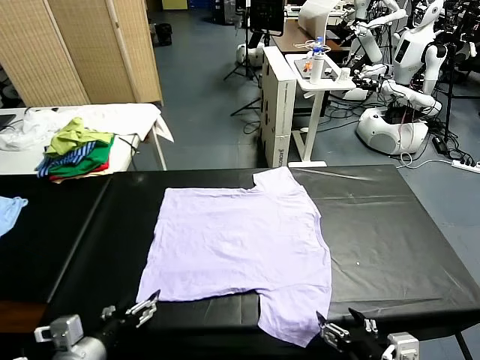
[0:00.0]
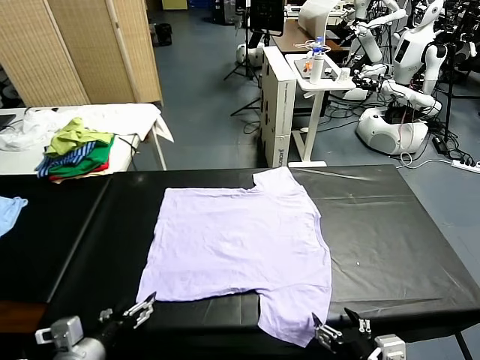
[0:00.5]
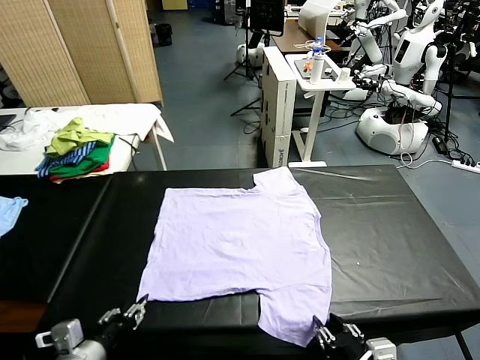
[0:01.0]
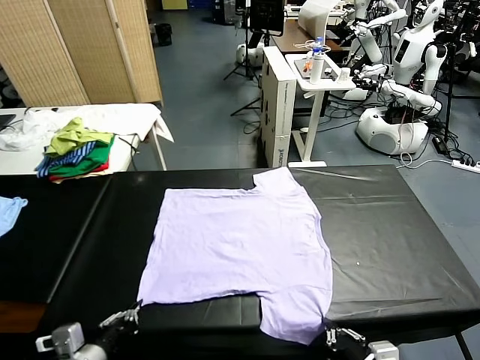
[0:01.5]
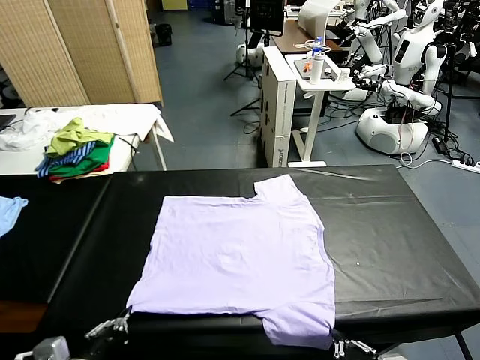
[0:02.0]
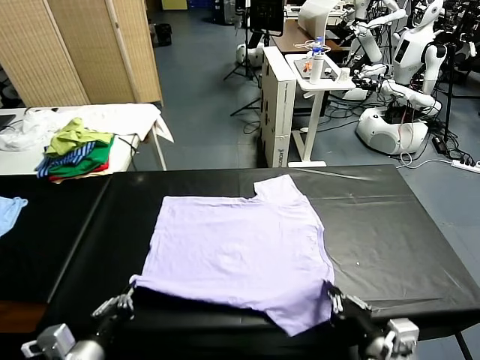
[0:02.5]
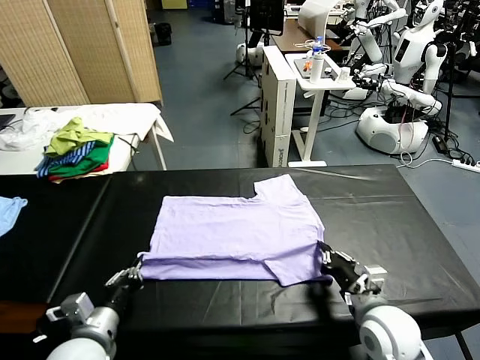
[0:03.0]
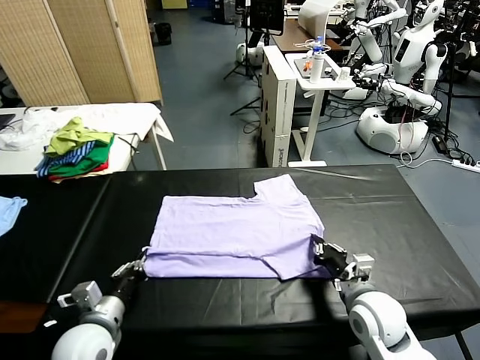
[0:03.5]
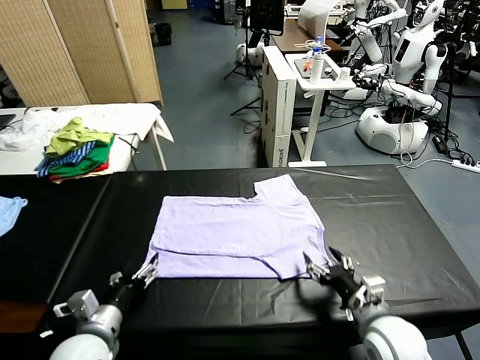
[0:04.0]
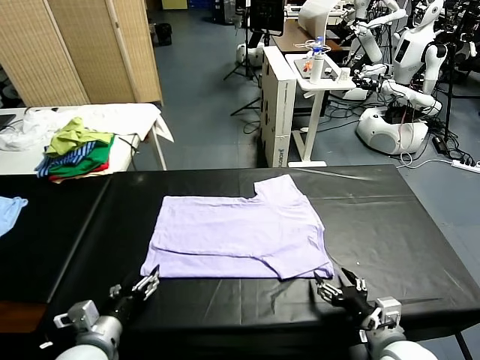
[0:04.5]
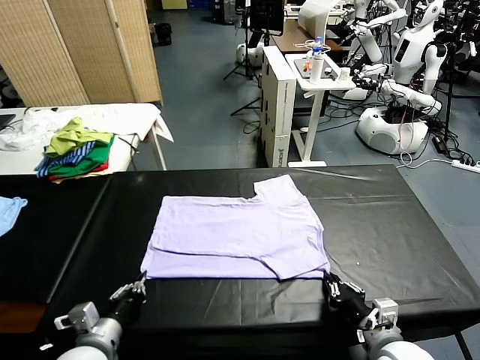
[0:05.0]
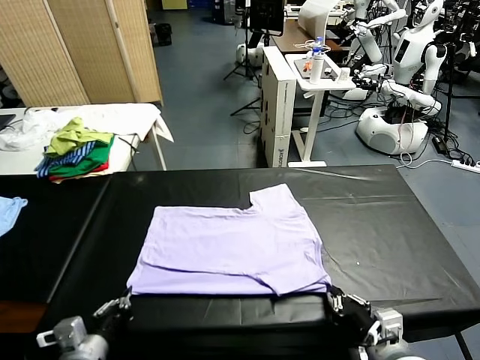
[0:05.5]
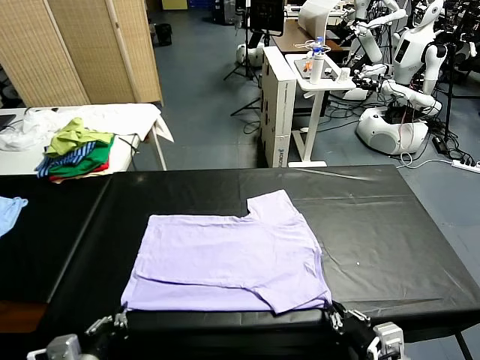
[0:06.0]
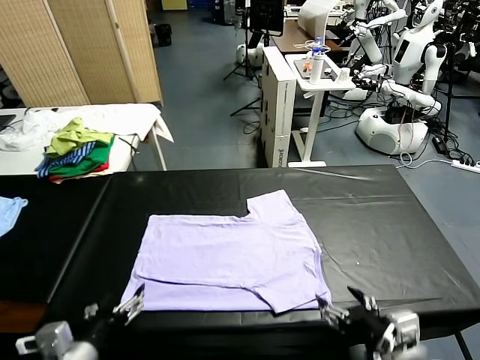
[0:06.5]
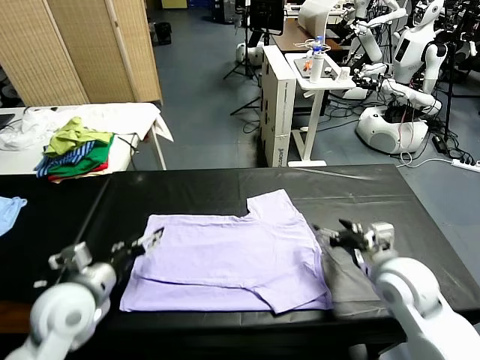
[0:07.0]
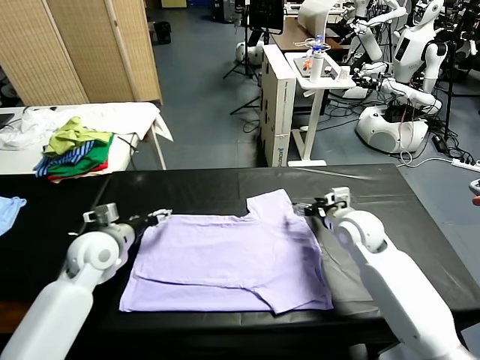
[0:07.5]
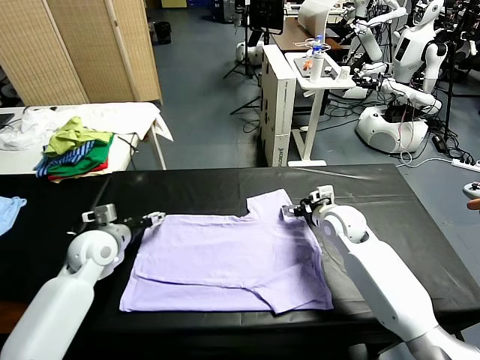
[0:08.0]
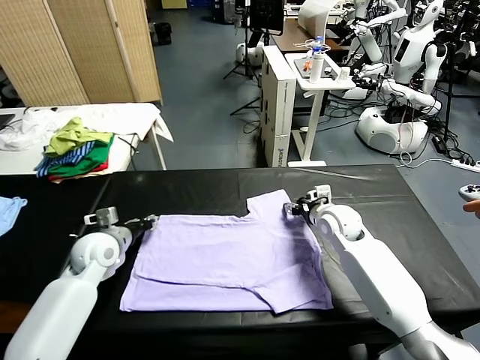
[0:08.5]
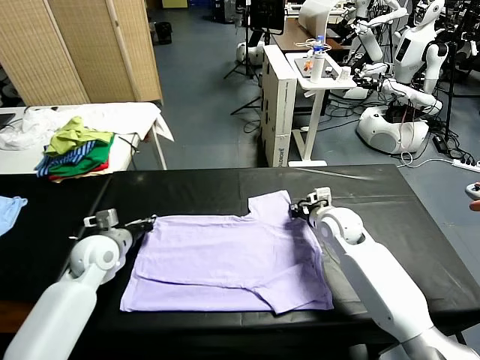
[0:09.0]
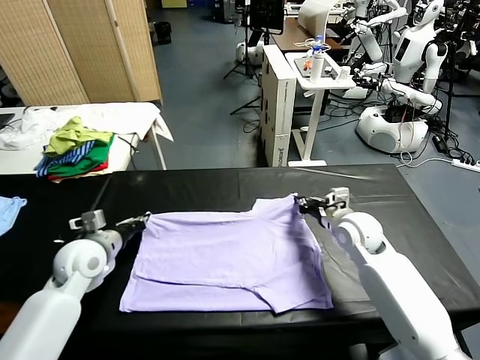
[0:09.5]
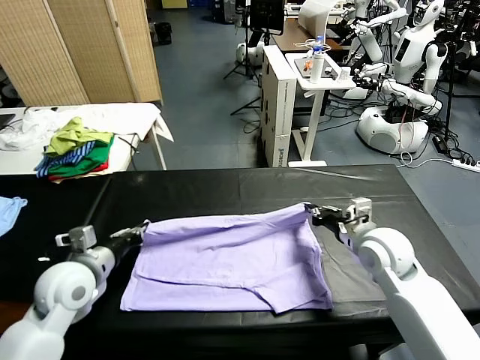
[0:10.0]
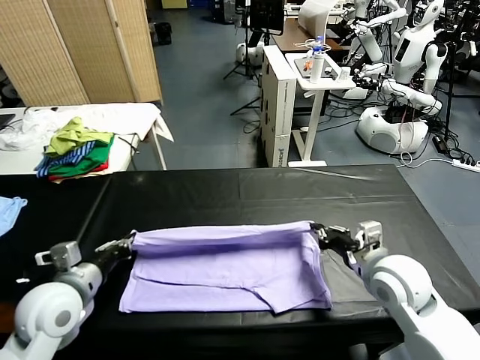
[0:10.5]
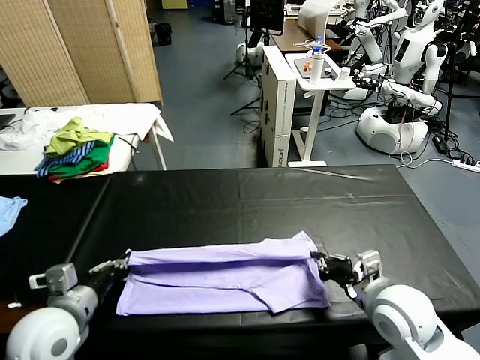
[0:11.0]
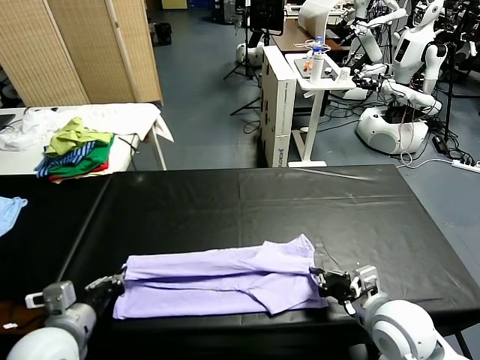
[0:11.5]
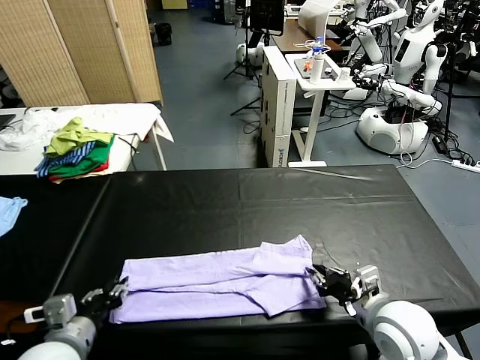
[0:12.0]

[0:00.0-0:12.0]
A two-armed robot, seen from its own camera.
Task of the whole recording: fold and organize the clothes.
Step, 0:00.0 to 0:01.5: use both grippers simultaneously to clamp the lower edge of the clothing fabric.
Step, 0:02.0 to 0:03.5: use both grippers to drag the lower edge of the fabric forward and fold it over the upper edge.
Step, 0:04.0 to 0:06.0: Drag the clothes downward with both gripper.
Step, 0:06.5 to 0:09.0: use both grippers simultaneously to clamp the upper edge of the clothing fabric.
0:02.0 to 0:04.0: Both grippers move forward and downward, about 10 cm. The right gripper opens its fingers. The left gripper opens.
0:04.0 to 0:06.0: The left gripper shifts some 10 cm backward, and closes its fingers, while the right gripper travels backward and upward by about 10 cm, and closes, then reopens.
0:06.0 to 0:08.0: The two grippers go some 30 cm forward. The left gripper opens up.
0:08.0 to 0:10.0: The right gripper goes roughly 15 cm backward and upward, and closes. The left gripper moves backward, approximately 10 cm, and closes up.
0:10.0 to 0:12.0: Both grippers travel together backward, approximately 10 cm. The left gripper opens its fingers. Meanwhile the right gripper opens its fingers.

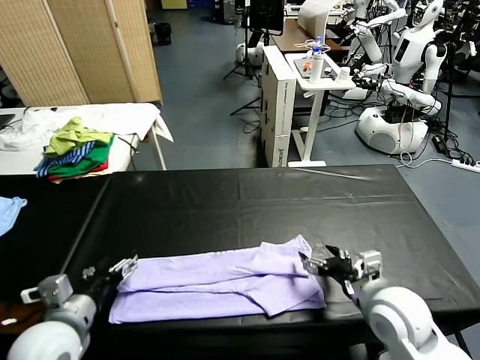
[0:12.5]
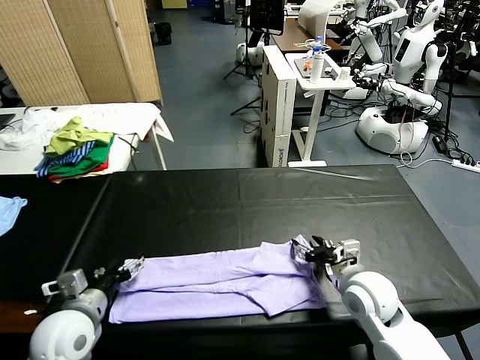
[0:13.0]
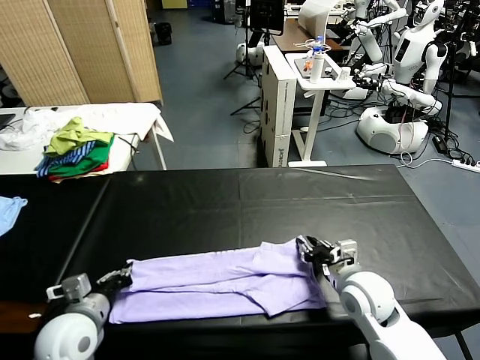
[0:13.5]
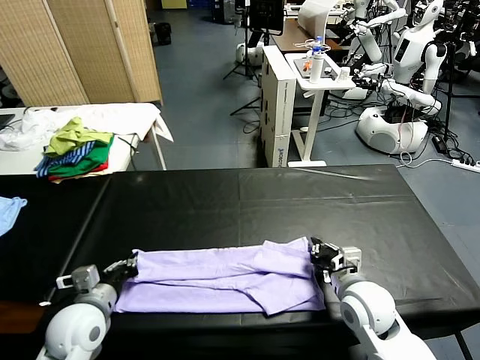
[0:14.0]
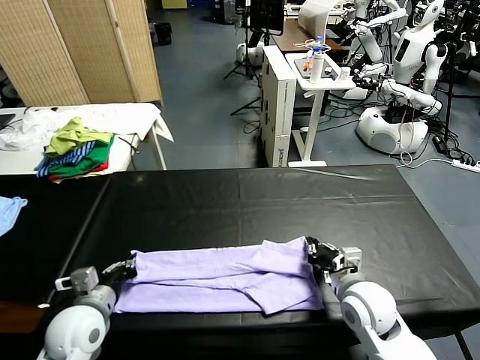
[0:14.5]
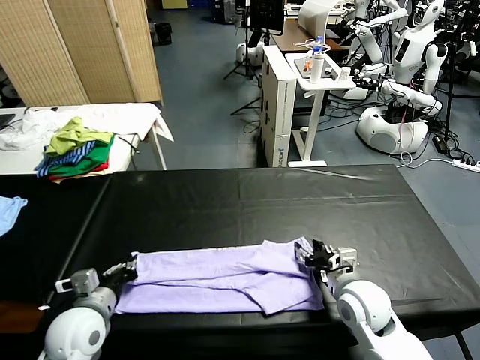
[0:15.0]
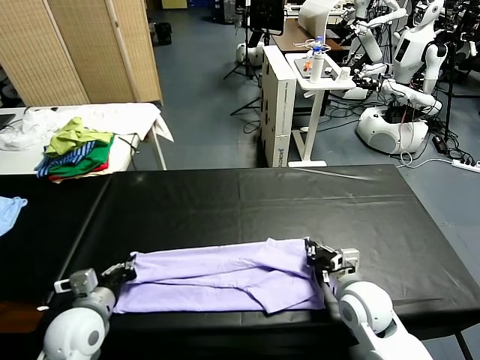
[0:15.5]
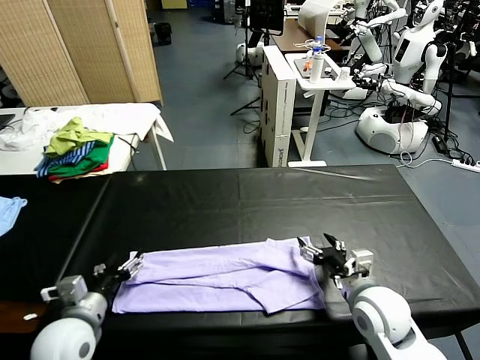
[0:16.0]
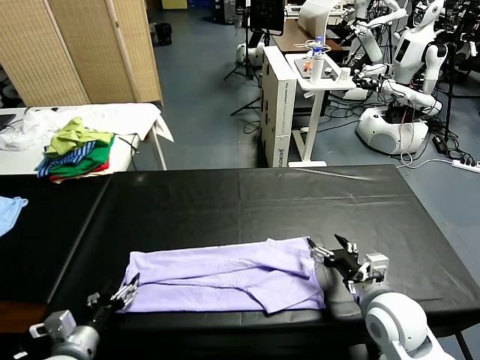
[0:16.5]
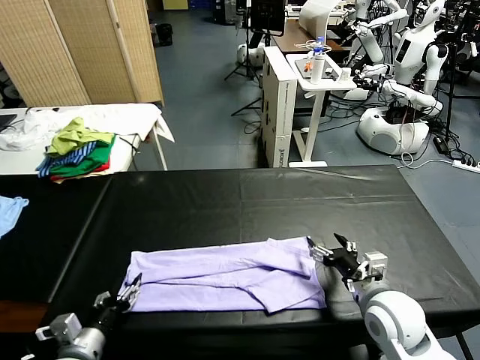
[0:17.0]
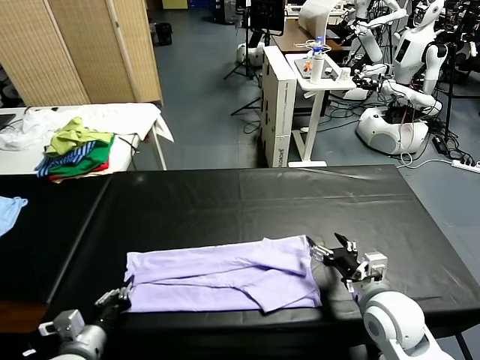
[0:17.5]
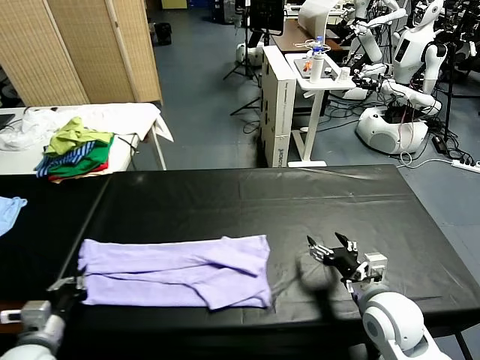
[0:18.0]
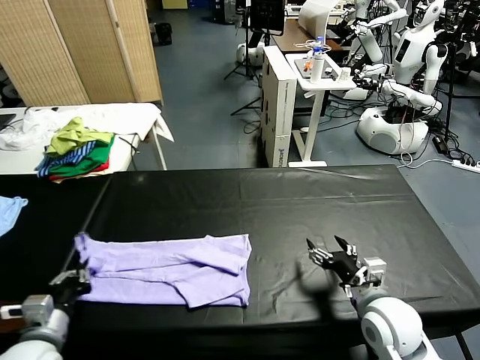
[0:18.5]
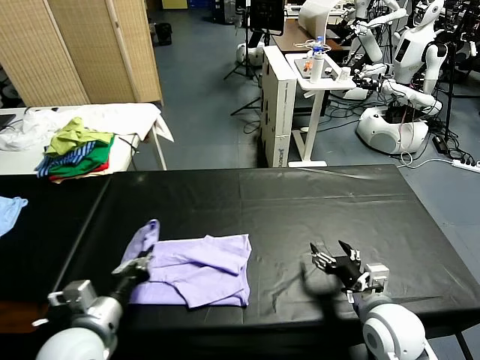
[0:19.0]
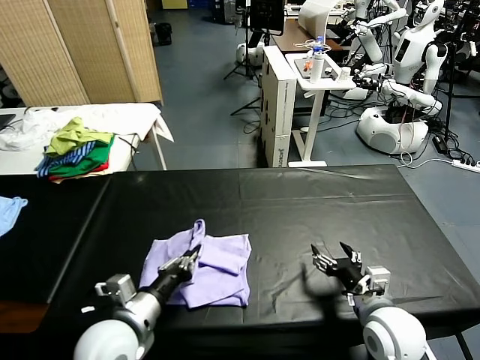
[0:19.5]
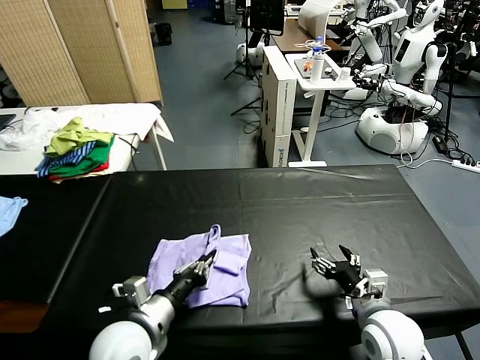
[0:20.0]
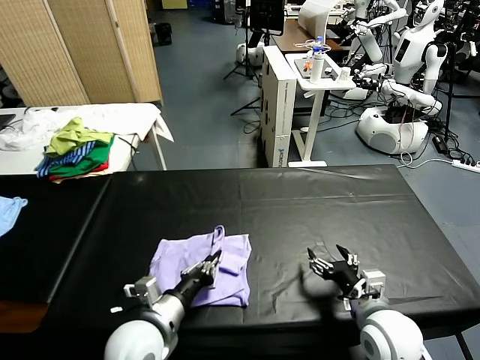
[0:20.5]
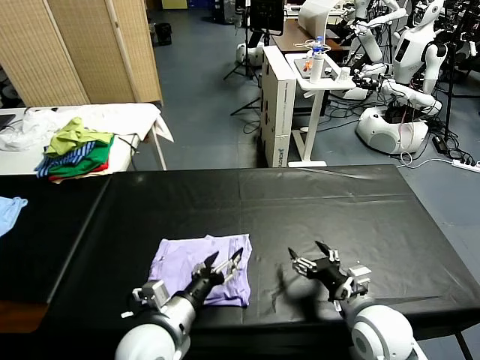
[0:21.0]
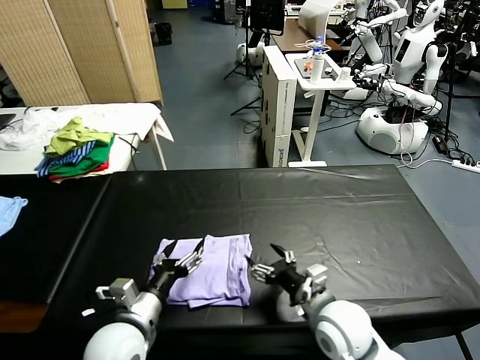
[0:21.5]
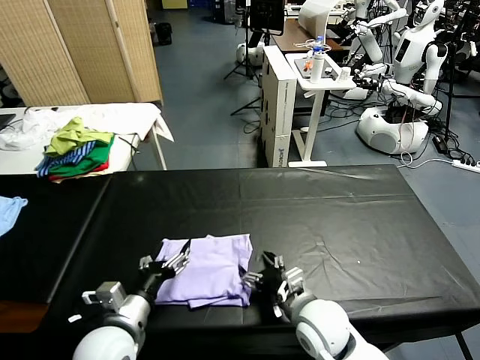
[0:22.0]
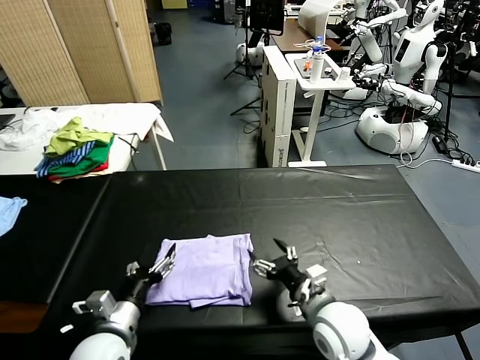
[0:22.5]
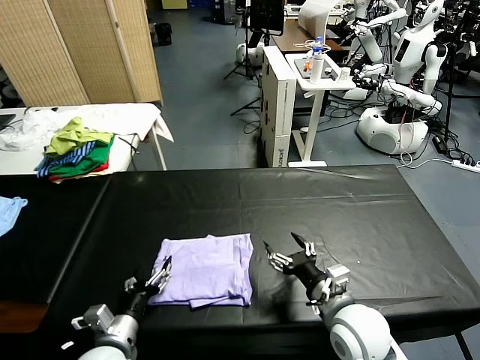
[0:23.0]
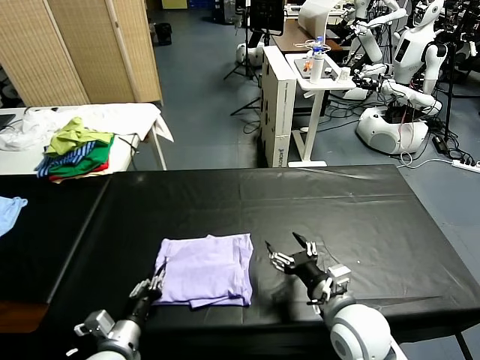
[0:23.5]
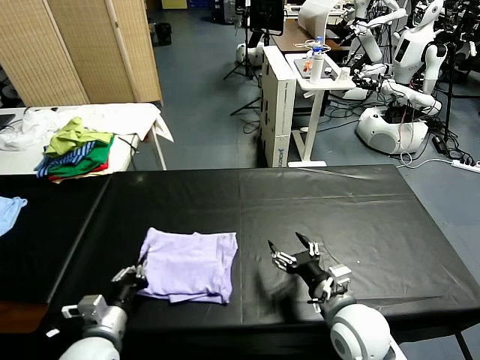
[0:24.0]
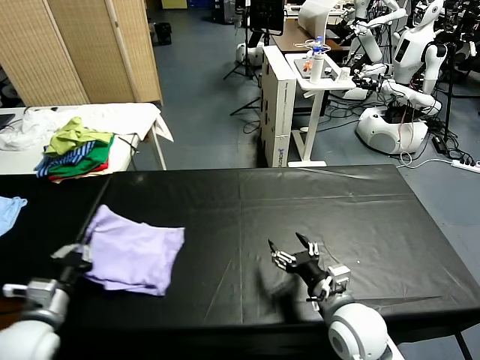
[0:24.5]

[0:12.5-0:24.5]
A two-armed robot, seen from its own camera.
Task of the whole recording: fold and organize the clothes.
Step, 0:12.5 to 0:17.5: use the left gripper to clamp the left edge of the fabric.
Step, 0:18.0 to 0:21.0: use the left gripper to drag the left edge of the fabric to the left and folds it over the right edge.
0:12.5 to 0:14.5: The left gripper travels downward by approximately 5 cm, and closes up; the right gripper closes its fingers.
0:14.5 to 0:16.5: The right gripper ends up about 5 cm from where it was, and opens; the left gripper moves backward, about 10 cm, and opens.
0:16.5 to 0:18.5: The left gripper ends up about 5 cm from where it was, and closes its fingers.
0:18.5 to 0:20.5: The left gripper shifts roughly 20 cm to the right.
0:20.5 to 0:22.5: Both grippers travel together to the left, roughly 10 cm. The left gripper opens its fingers.
0:22.5 to 0:24.5: The left gripper is displaced to the left by approximately 10 cm, and closes up.

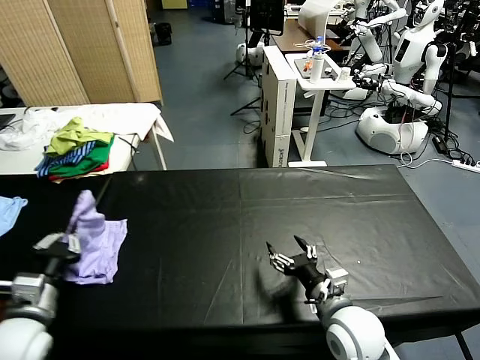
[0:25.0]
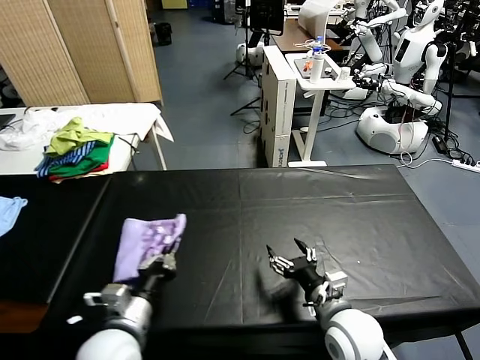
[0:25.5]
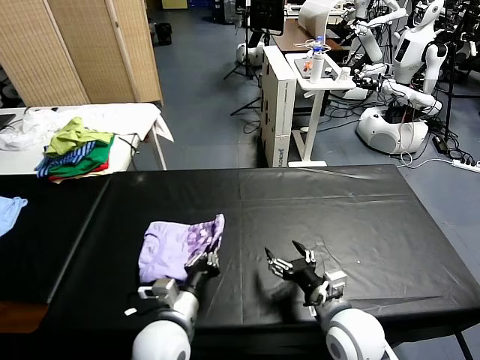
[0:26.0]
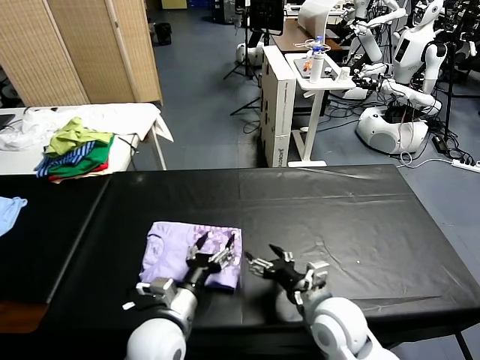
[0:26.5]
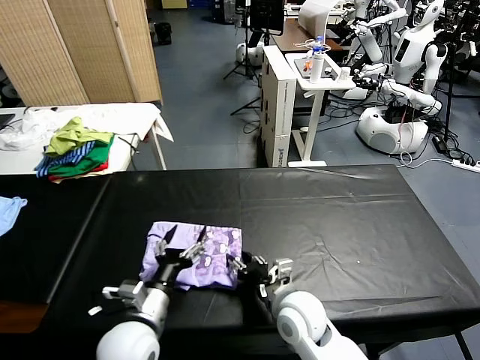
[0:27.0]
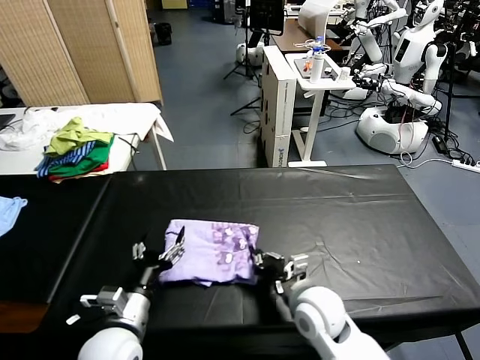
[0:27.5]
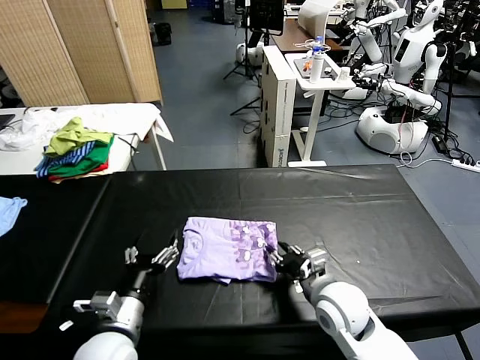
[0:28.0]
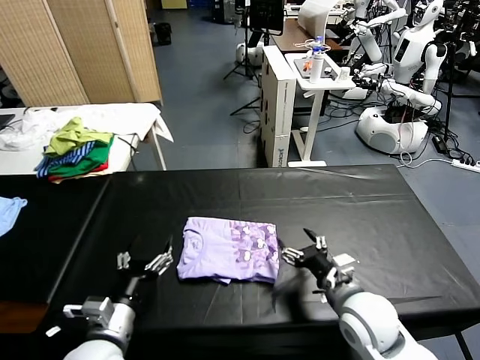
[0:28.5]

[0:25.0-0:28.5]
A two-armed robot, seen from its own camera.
Task of the whole recording: fold and organize the clothes.
Step, 0:27.0 to 0:28.0: Drag the clothes to the center of the table.
0:25.0 to 0:27.0: The right gripper travels to the left by approximately 10 cm, and closes its fingers; the left gripper travels to the right by about 15 cm, and opens.
0:27.0 to 0:28.5: The left gripper changes place by about 5 cm. Meanwhile the right gripper shifts about 10 cm to the right, and opens.
